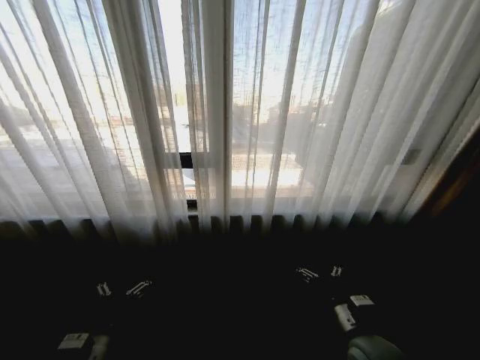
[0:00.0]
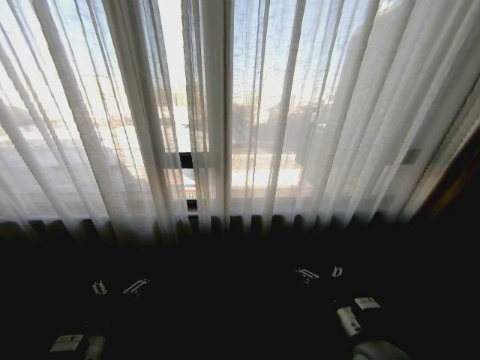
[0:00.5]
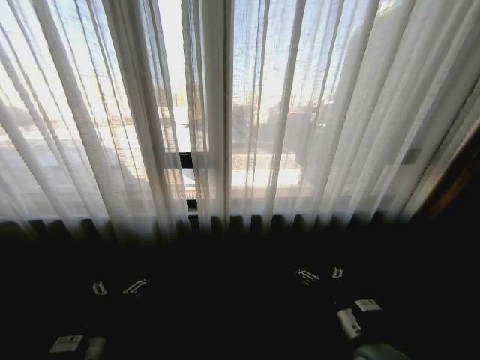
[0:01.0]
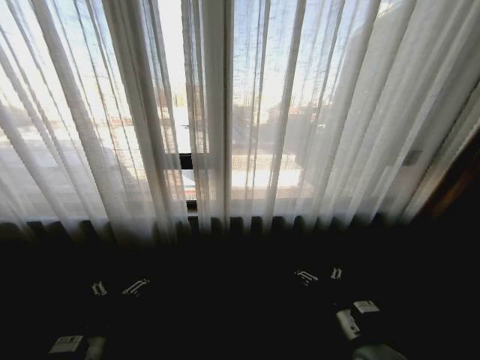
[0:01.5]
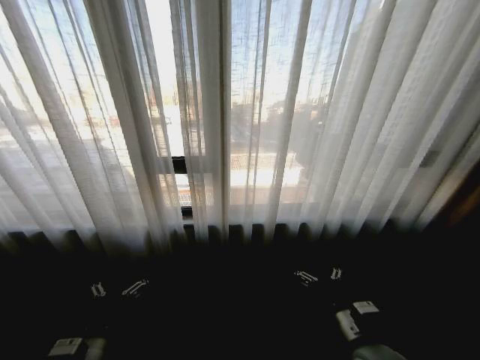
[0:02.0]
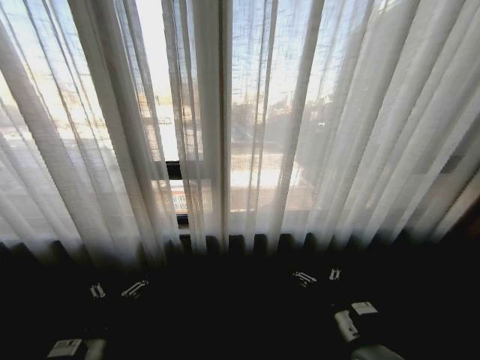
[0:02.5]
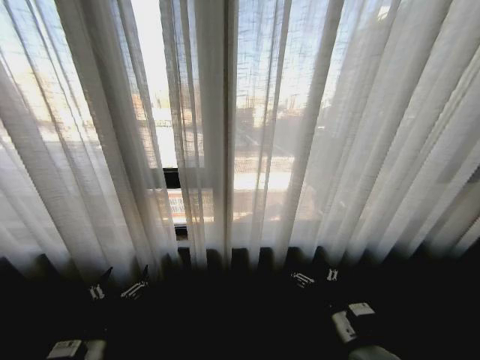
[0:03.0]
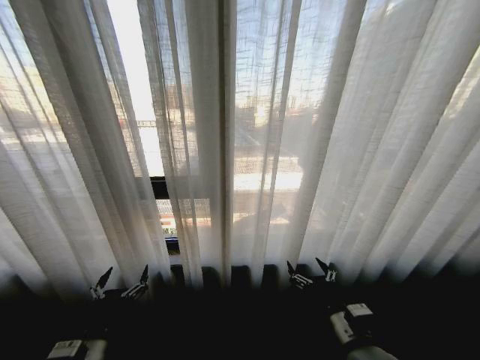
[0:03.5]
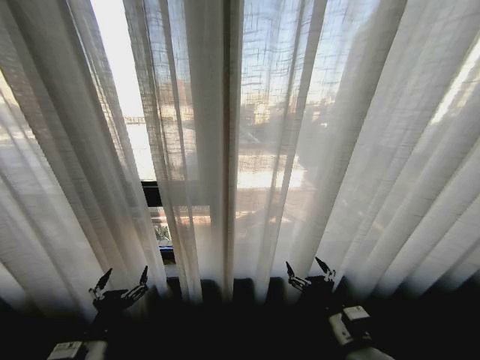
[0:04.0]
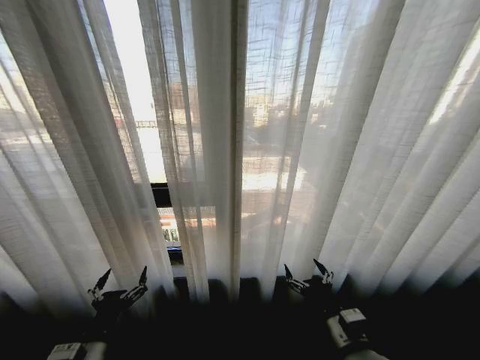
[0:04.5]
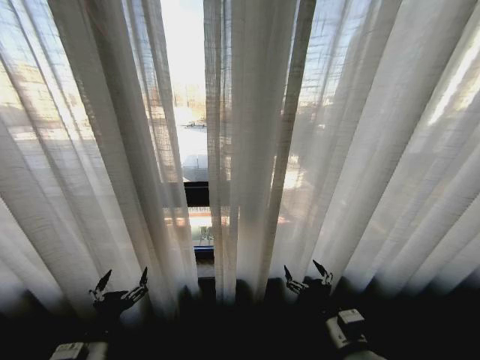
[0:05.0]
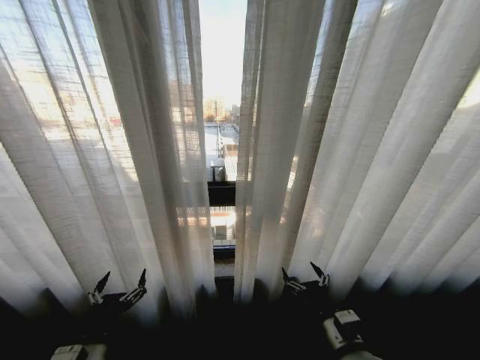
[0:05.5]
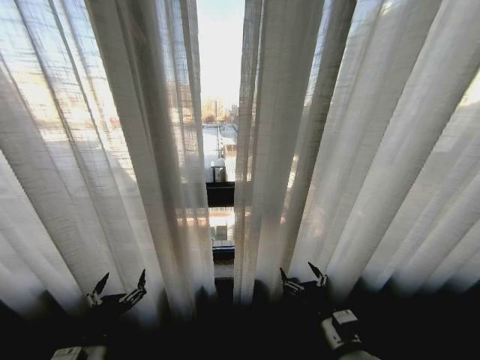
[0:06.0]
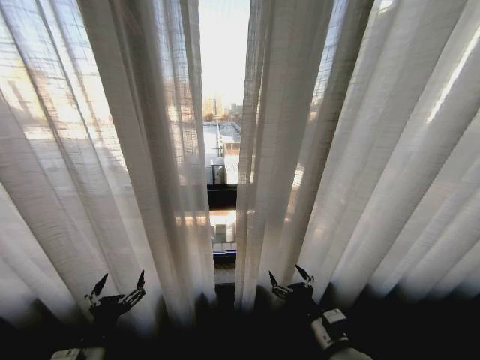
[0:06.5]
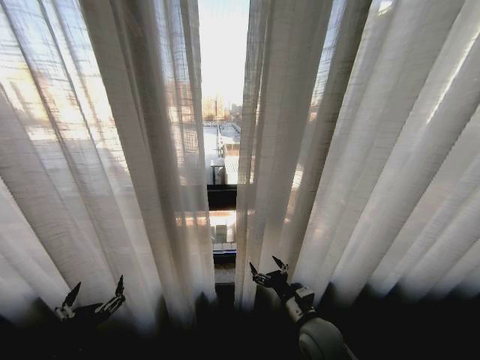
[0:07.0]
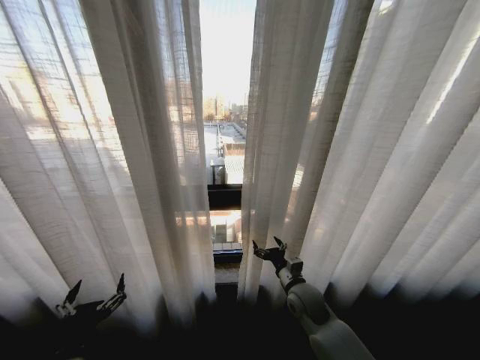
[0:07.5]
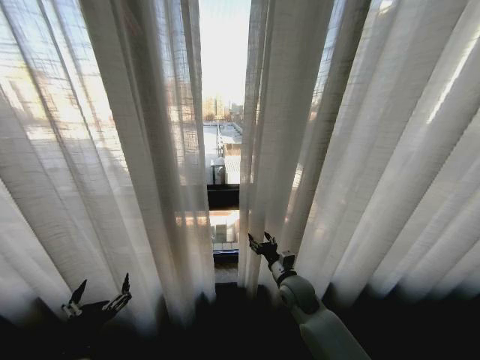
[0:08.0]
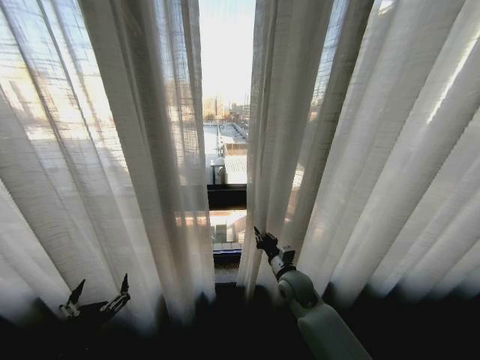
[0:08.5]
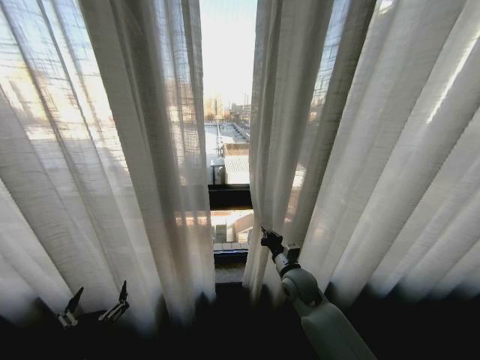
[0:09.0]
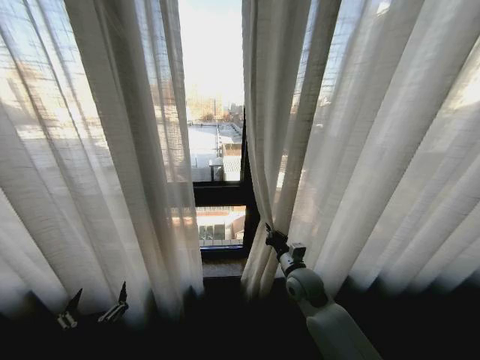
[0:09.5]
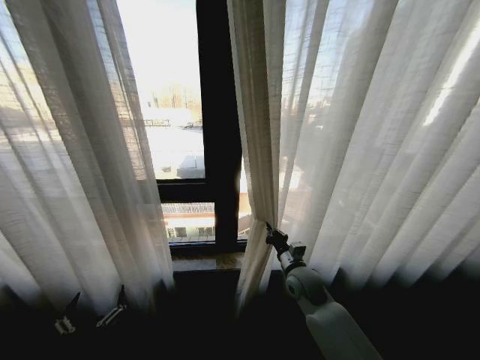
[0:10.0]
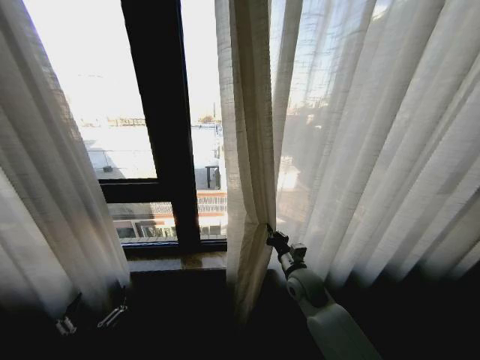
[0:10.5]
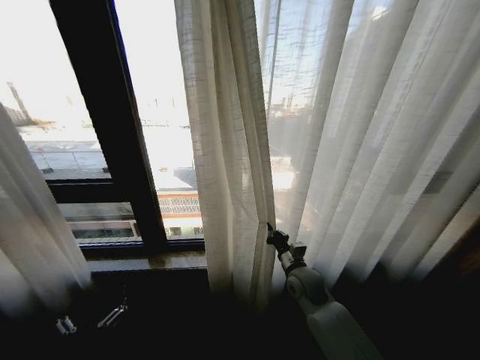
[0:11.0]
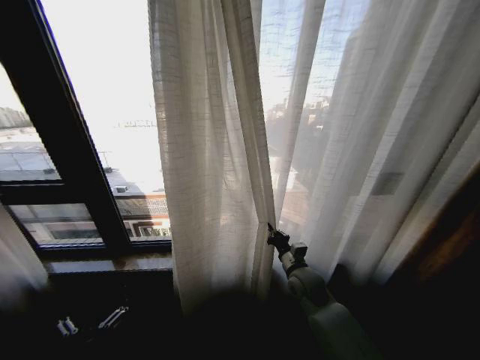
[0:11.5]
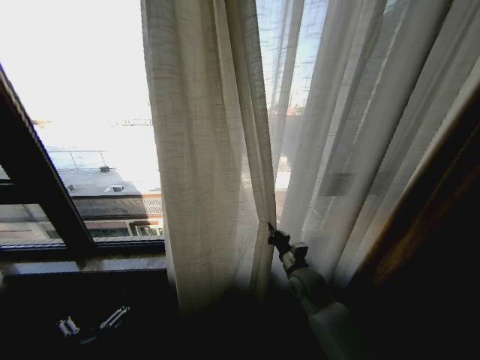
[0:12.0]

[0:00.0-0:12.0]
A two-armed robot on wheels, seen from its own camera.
Task of the whole recording: Open the curtains by pulling them apart, changing their state from closed to fully open.
0:06.0 to 0:08.0: The right gripper goes about 20 cm forward.
0:08.0 to 0:10.0: The right gripper closes.

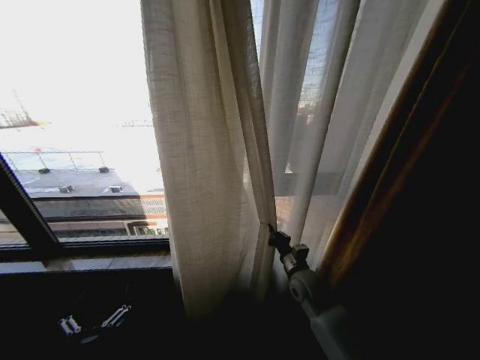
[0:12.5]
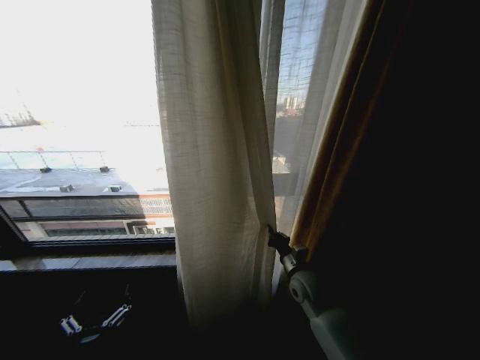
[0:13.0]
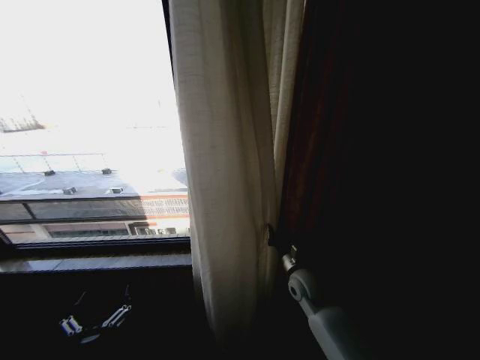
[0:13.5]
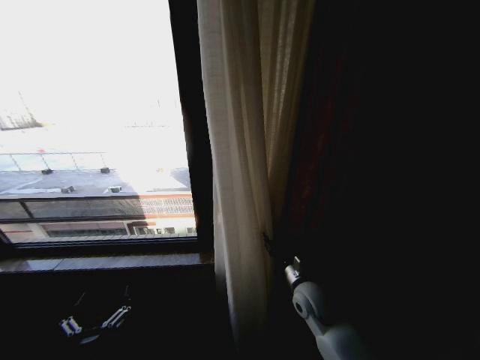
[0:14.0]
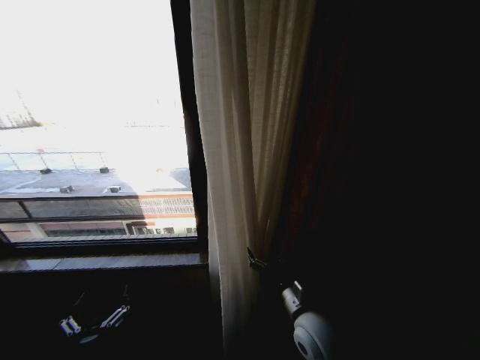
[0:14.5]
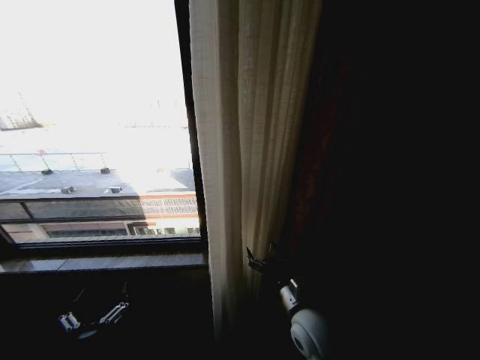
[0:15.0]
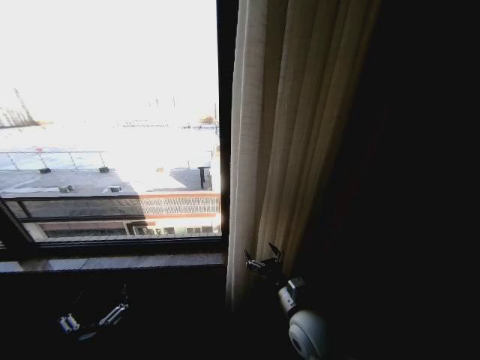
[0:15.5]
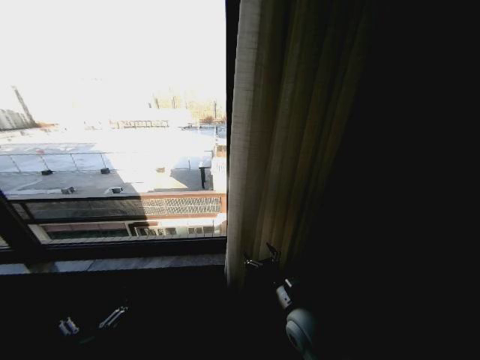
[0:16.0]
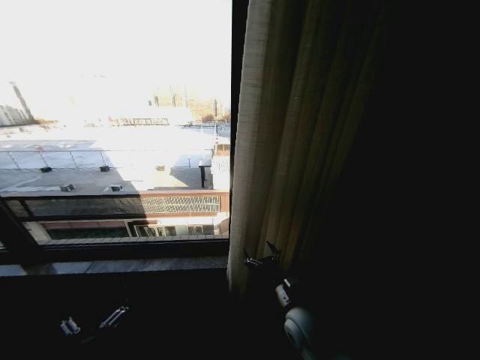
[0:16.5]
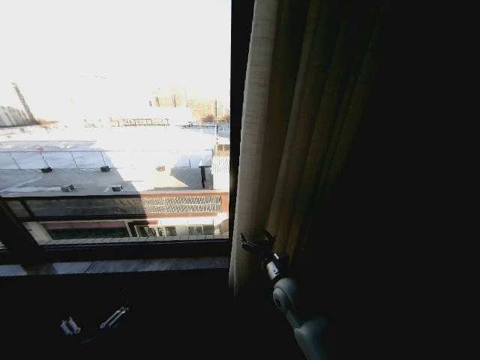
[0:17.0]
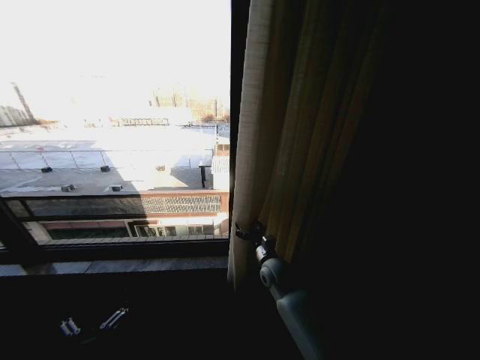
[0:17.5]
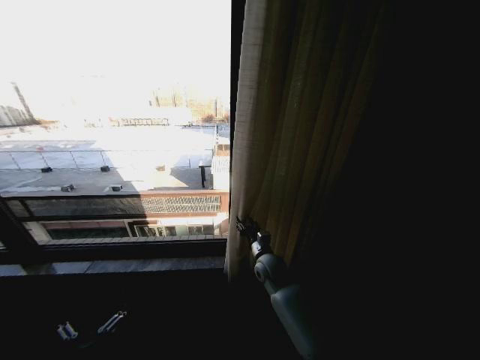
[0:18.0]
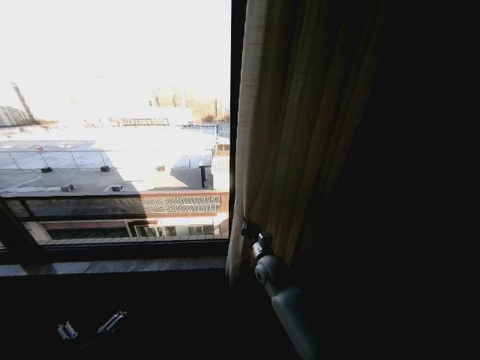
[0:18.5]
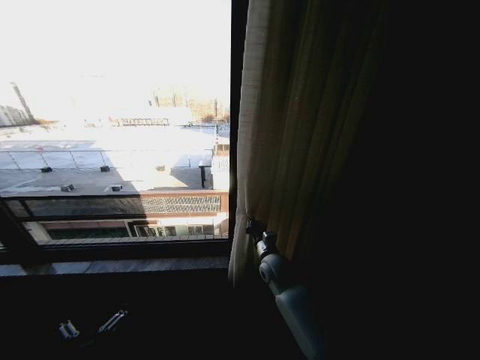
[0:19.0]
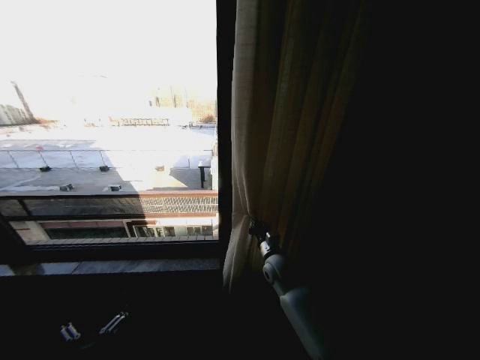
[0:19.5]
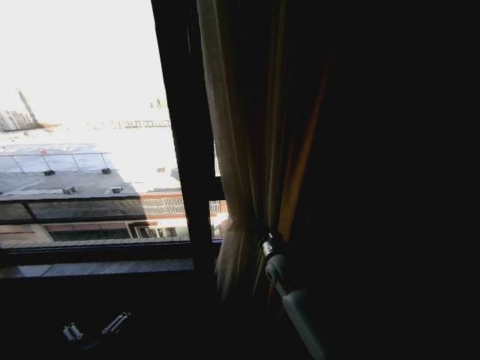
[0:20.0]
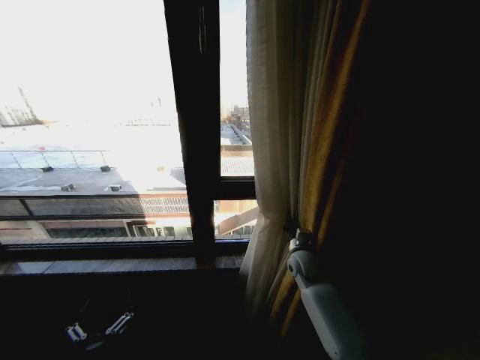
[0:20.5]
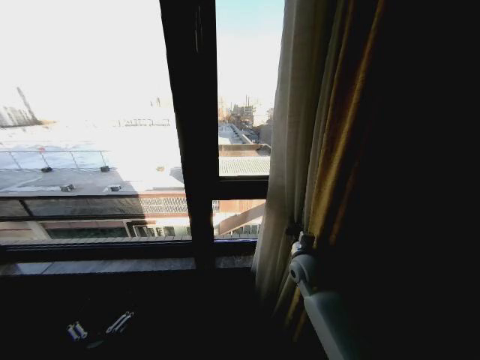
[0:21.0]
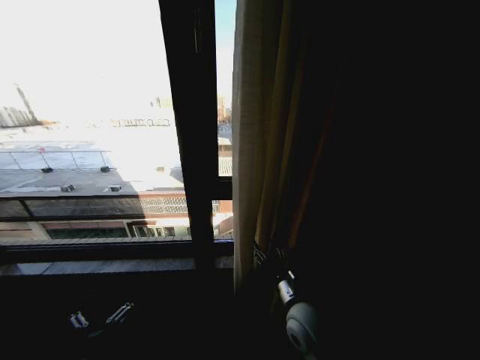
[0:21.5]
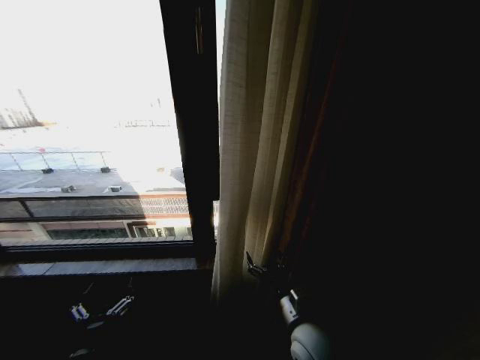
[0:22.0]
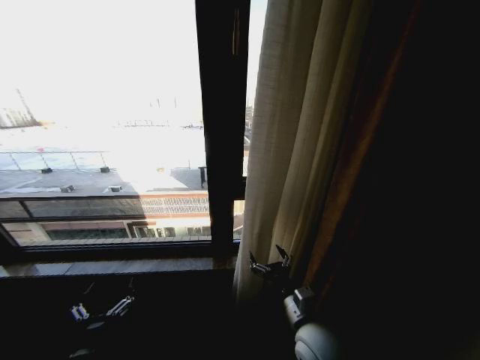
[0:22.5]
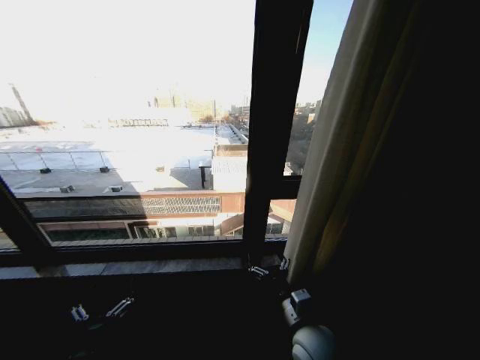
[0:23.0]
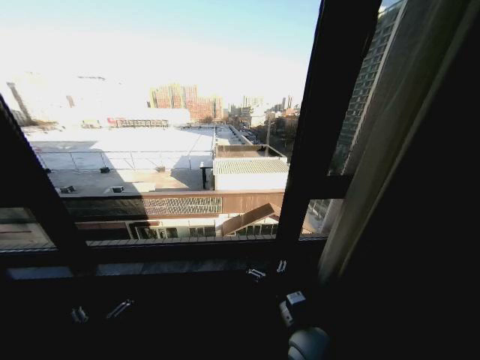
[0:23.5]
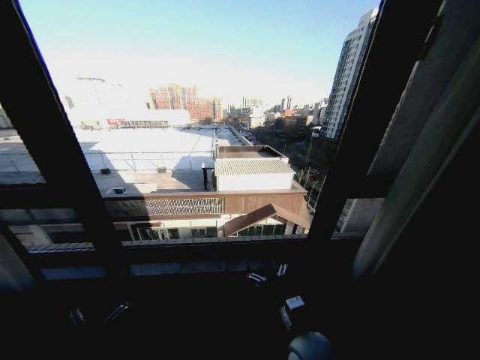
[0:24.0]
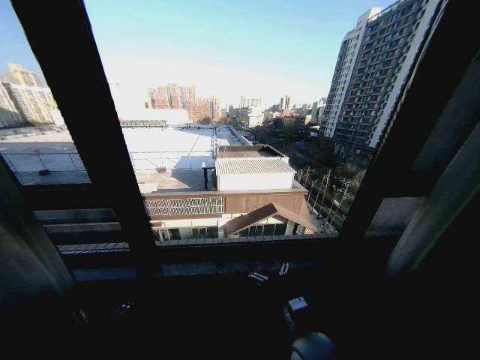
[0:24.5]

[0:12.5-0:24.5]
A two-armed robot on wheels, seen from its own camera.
Task of the whole recording: Open the curtains by pulling them apart, changing their state from closed to fully open.
0:12.5 to 0:14.5: The right gripper goes about 10 cm backward, and opens up.
0:16.5 to 0:18.5: The right gripper is displaced forward by some 15 cm, and closes up.
0:18.5 to 0:20.5: The right gripper heads to the right, covering some 10 cm.
0:20.5 to 0:22.5: The right gripper travels backward by roughly 20 cm, and opens up.

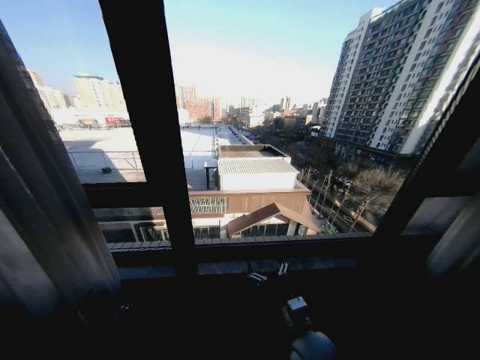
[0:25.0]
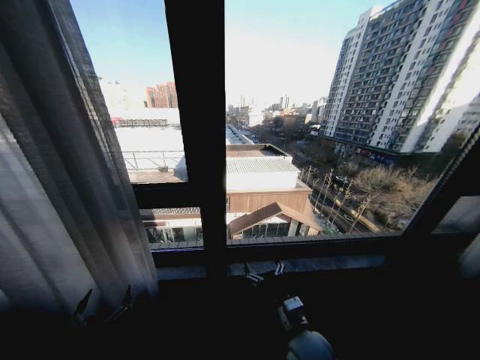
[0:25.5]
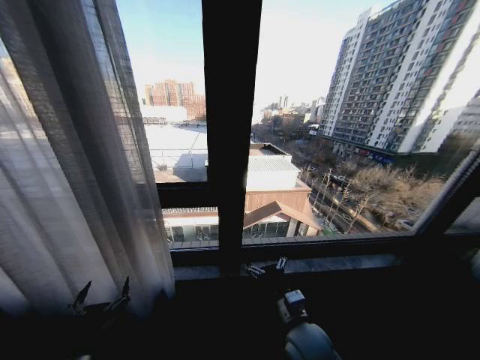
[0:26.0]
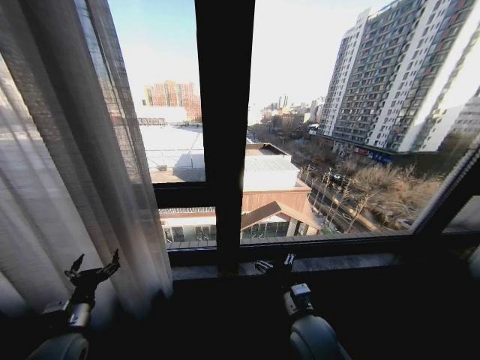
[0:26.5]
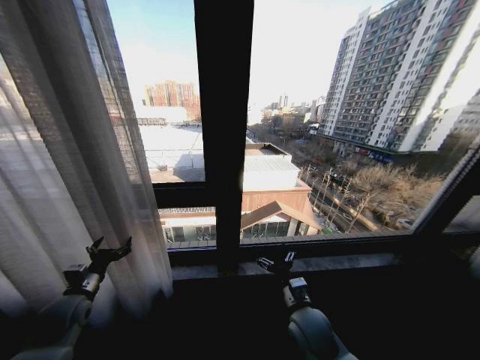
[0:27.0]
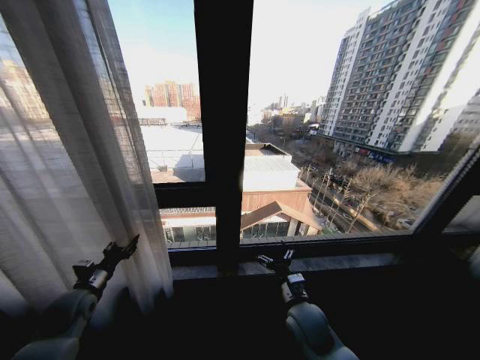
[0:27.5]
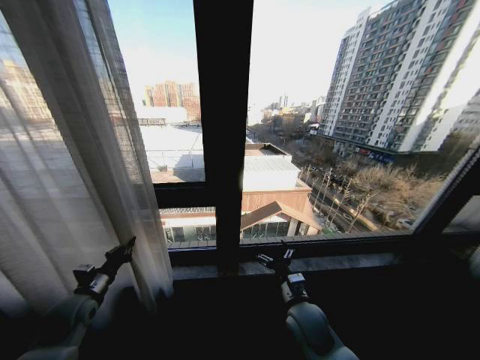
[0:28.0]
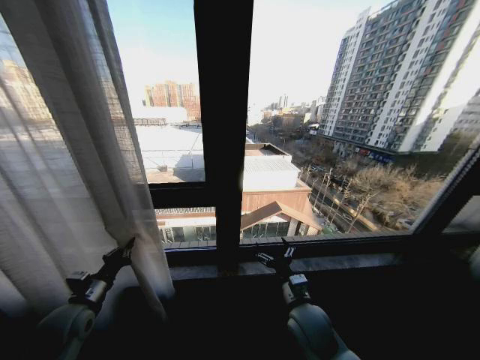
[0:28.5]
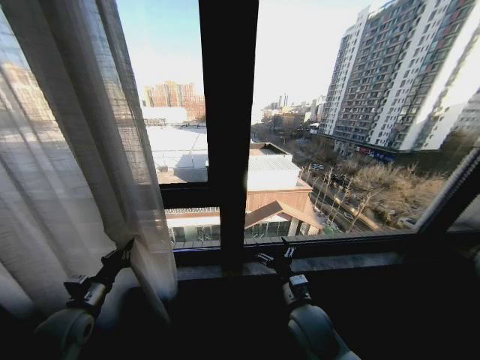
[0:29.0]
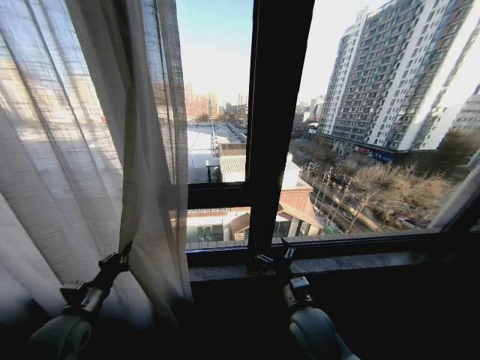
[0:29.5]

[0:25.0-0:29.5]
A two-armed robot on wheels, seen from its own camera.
Task of the whole recording: Open the curtains by pulling them apart, changing their state from closed to fully open.
0:25.0 to 0:27.0: The left gripper is displaced forward and to the left by approximately 25 cm. Meanwhile the right gripper travels forward by approximately 5 cm.
0:27.0 to 0:29.5: The left gripper moves backward, roughly 5 cm, and closes its fingers.
